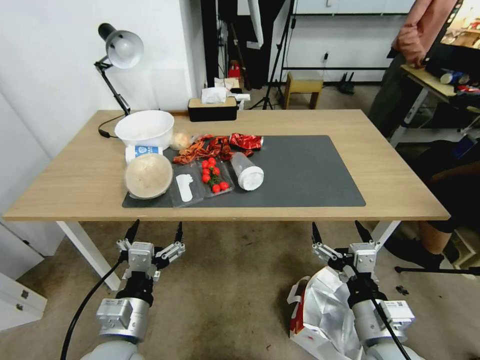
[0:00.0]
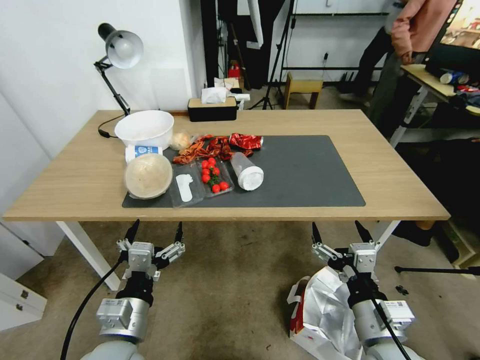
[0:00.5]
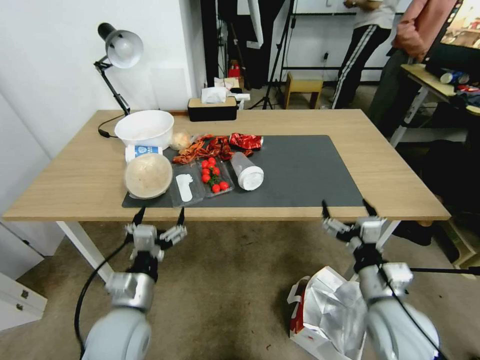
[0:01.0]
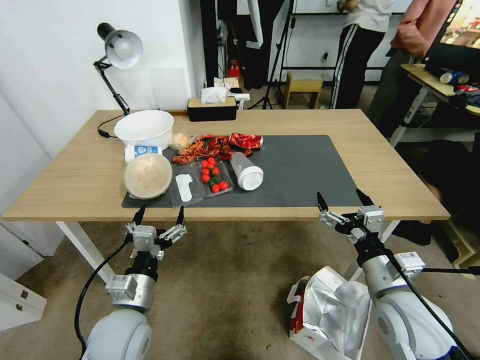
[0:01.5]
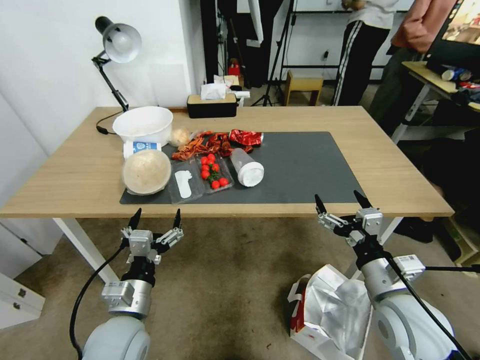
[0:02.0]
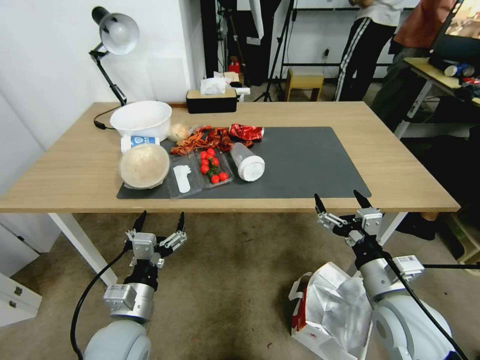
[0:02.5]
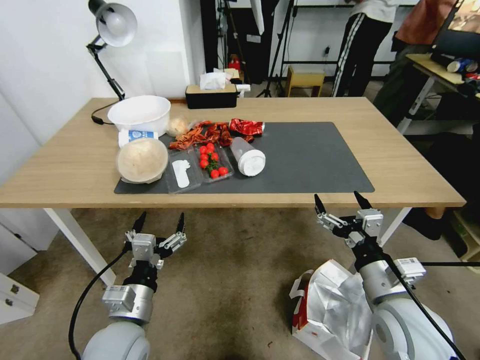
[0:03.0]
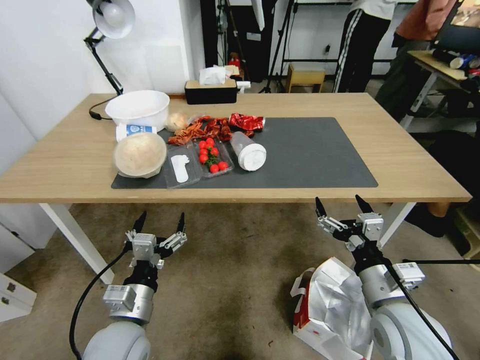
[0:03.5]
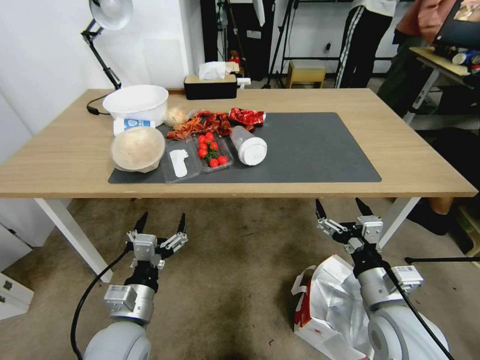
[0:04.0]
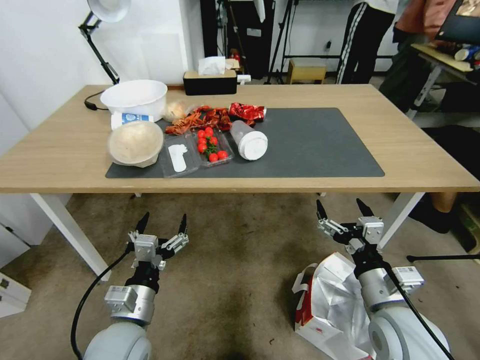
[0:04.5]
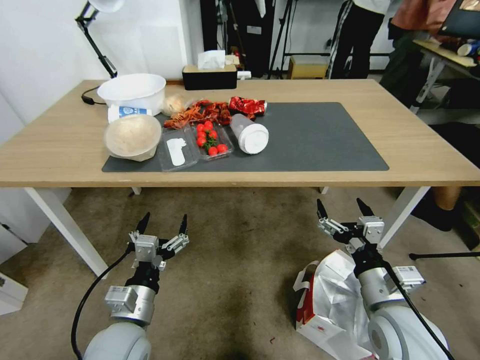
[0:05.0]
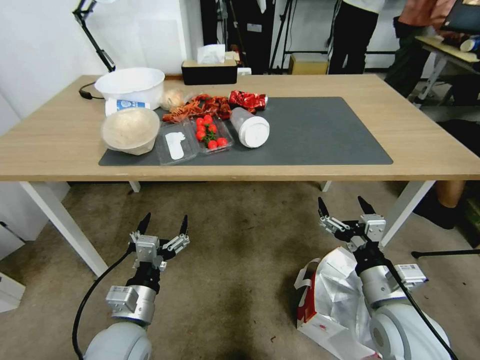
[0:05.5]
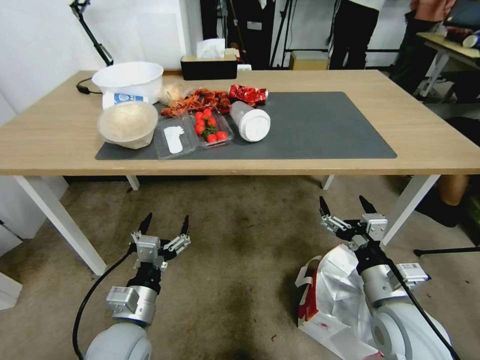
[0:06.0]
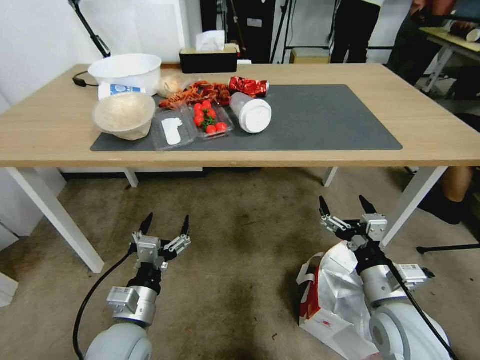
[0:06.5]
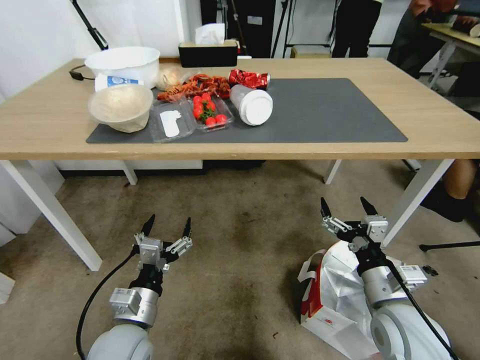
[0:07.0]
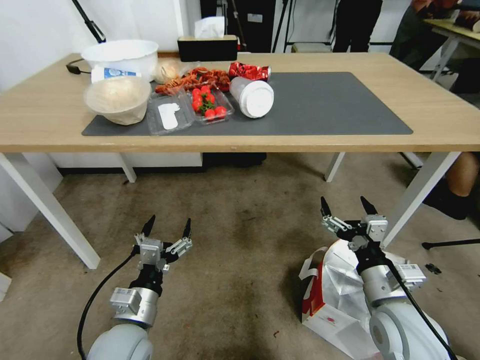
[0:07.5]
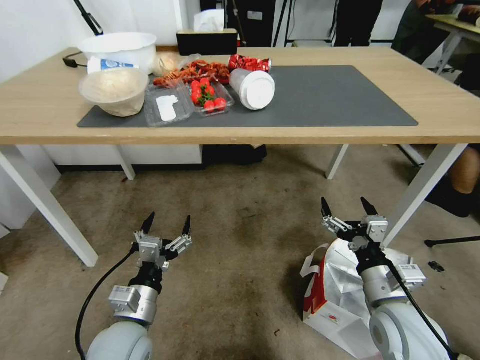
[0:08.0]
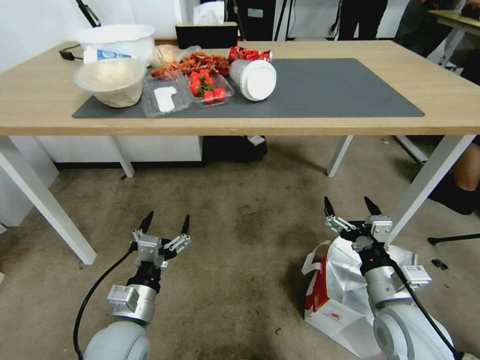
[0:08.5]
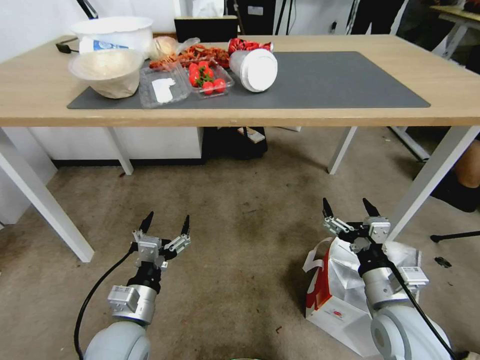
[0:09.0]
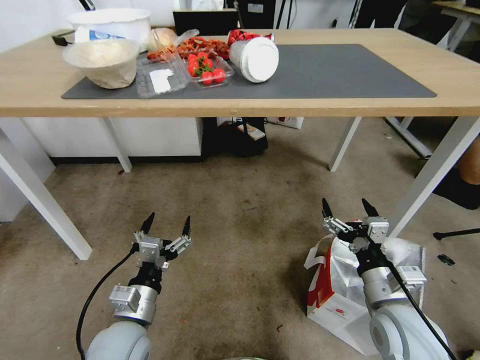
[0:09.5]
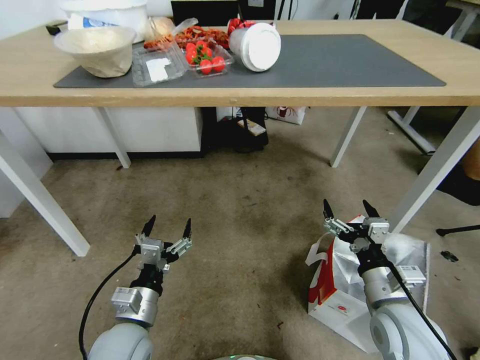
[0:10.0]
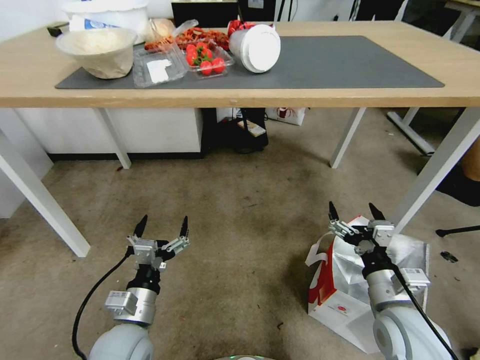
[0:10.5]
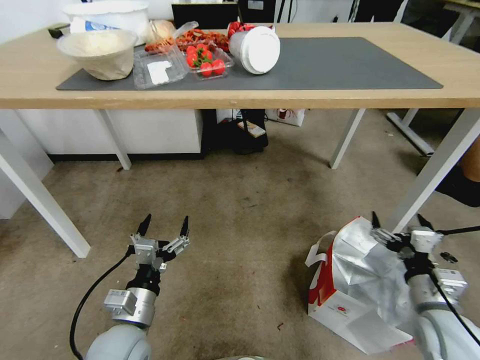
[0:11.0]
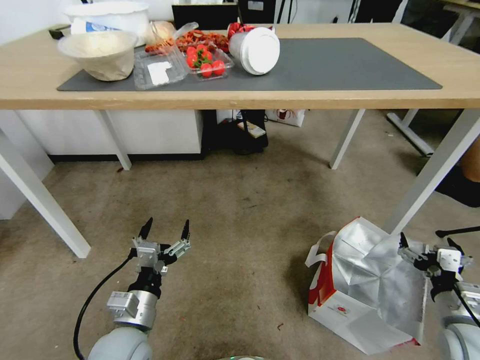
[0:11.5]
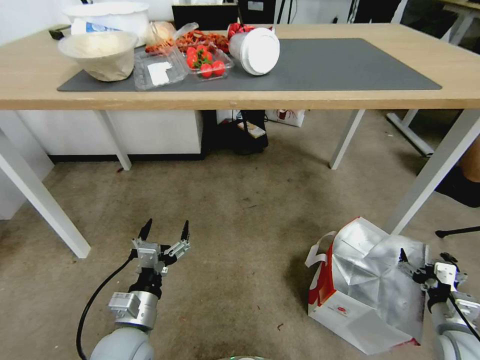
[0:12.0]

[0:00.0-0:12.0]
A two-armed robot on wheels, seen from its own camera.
Task of the whole recording: Pick up the food delivery bag from the floor and place it on the table.
0:10.0 to 0:12.0: The right gripper moves to the right and downward, about 20 cm.

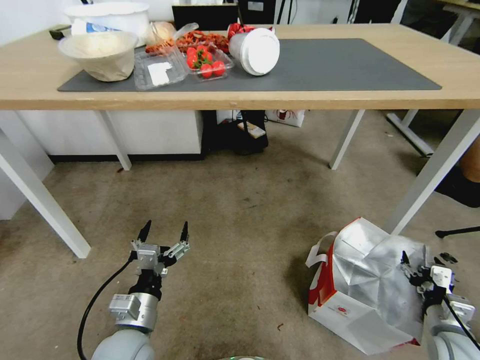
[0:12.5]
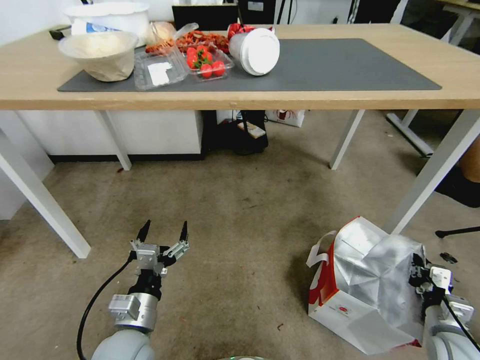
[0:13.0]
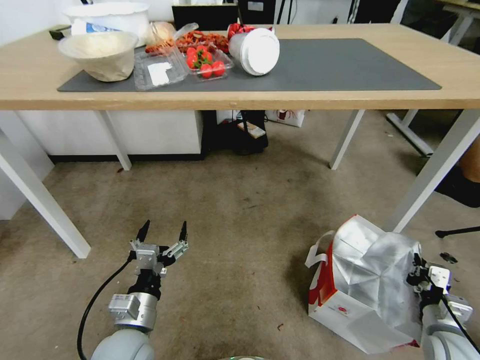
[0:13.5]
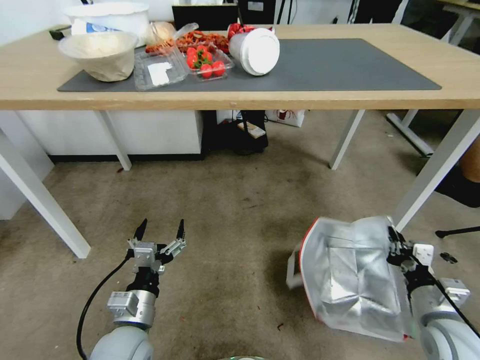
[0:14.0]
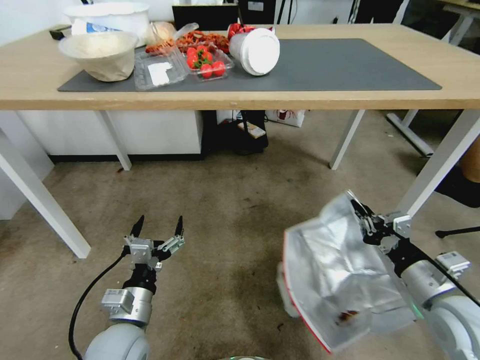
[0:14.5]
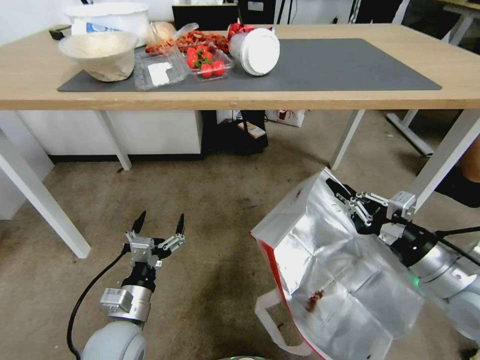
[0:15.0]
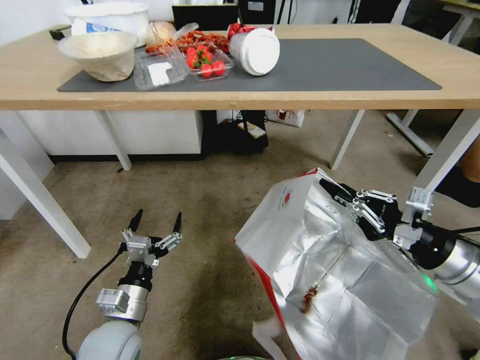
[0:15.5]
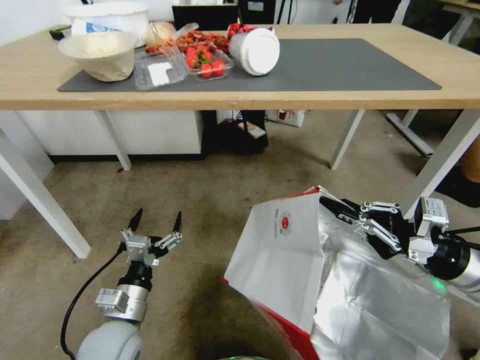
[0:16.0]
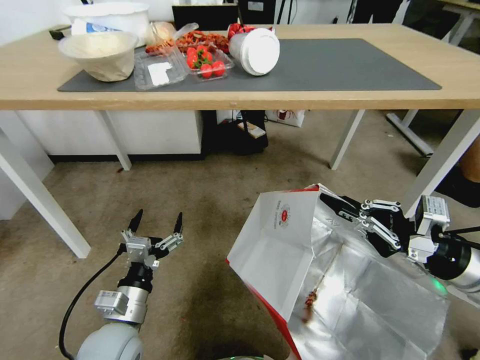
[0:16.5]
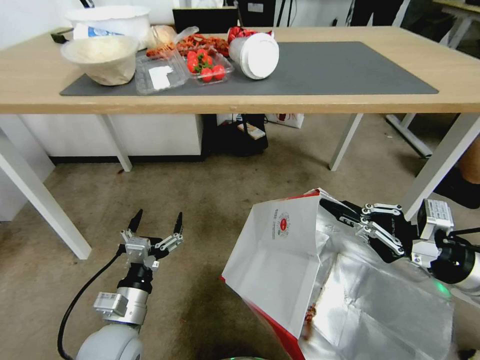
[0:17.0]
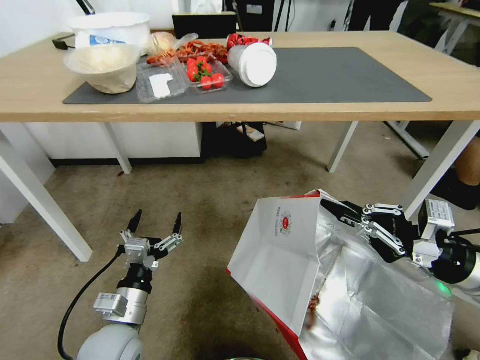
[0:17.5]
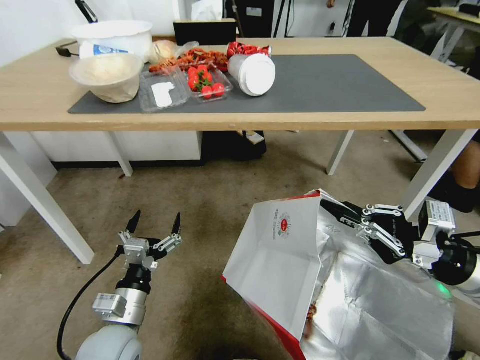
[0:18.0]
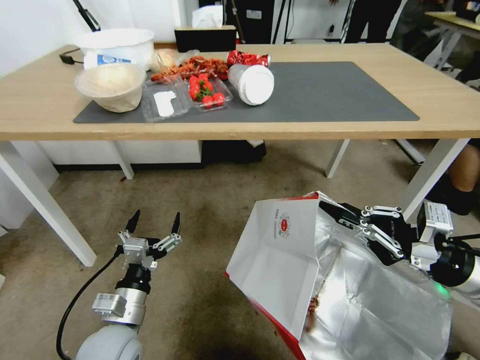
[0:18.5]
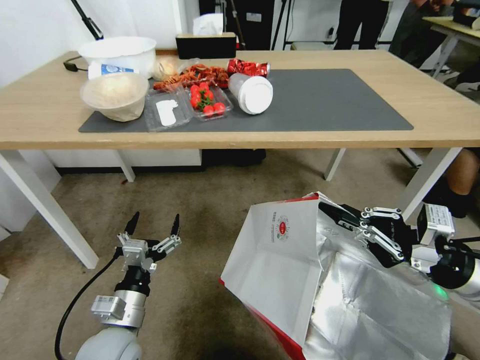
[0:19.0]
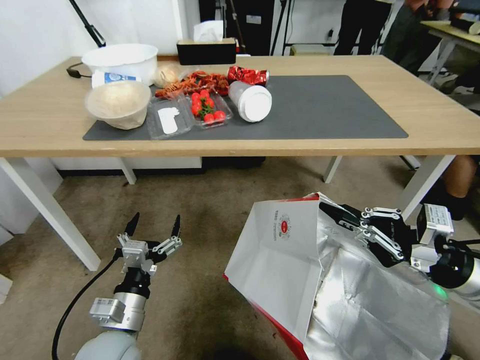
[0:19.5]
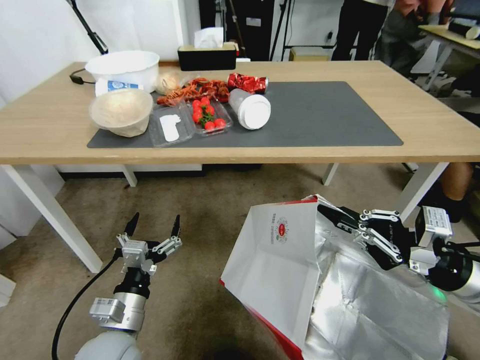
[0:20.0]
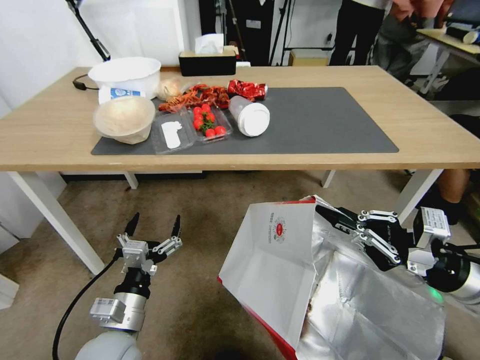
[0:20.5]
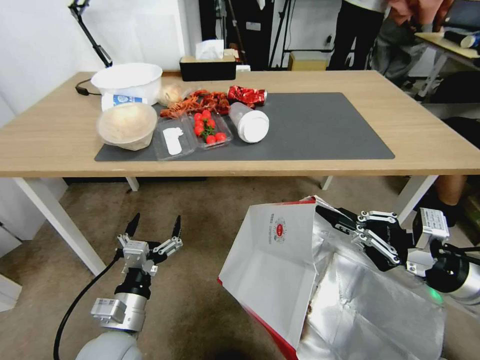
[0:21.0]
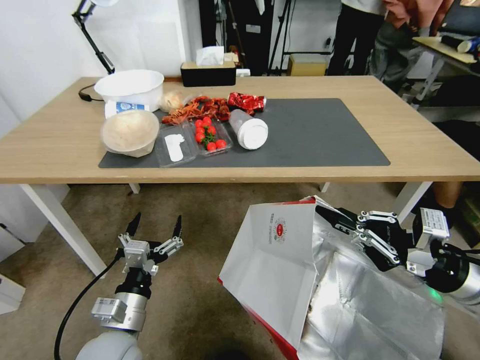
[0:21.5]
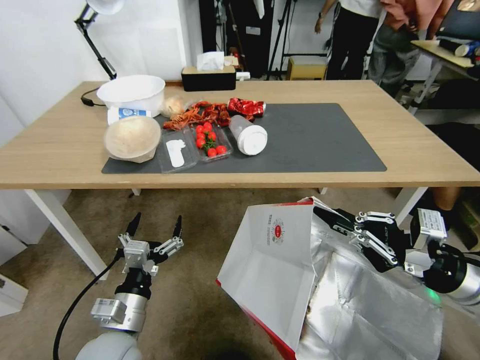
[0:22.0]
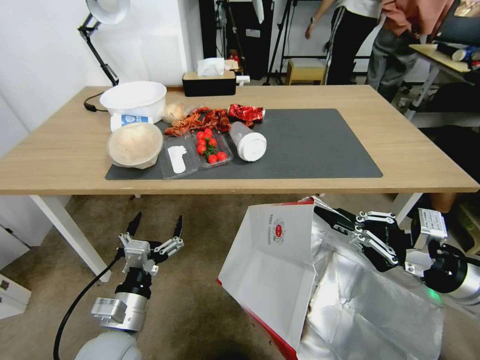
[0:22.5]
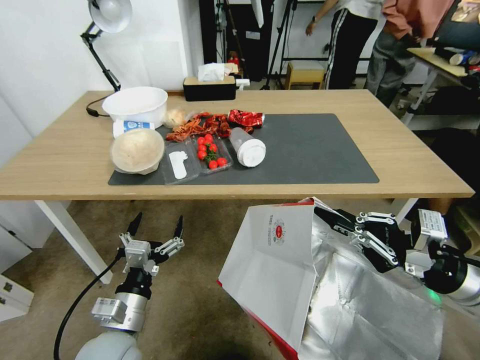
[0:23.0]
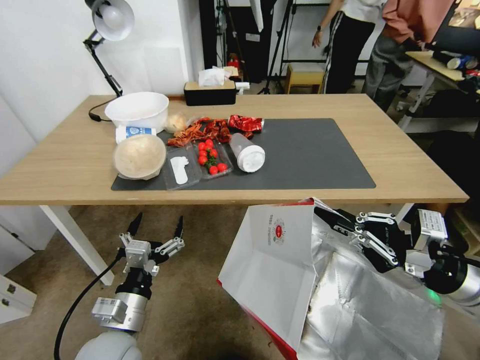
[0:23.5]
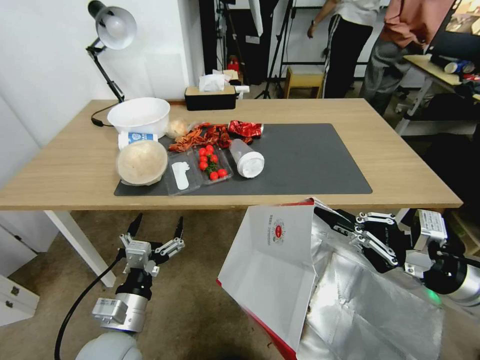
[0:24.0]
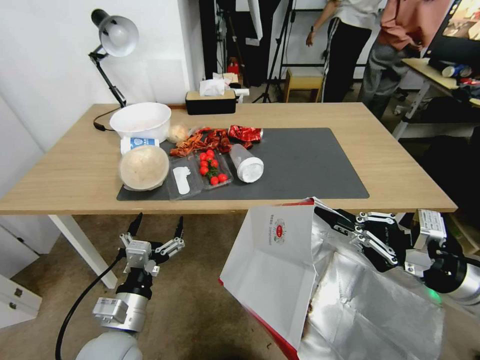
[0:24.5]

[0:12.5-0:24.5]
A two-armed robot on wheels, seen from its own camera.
Task of the whole recording: Pick up the food delivery bag from the floor and place it on the table.
0:12.5 to 0:14.5: The right gripper moves upward and to the left, roughly 20 cm, and closes its fingers.
0:14.5 to 0:16.5: The right gripper shifts approximately 10 cm upward.

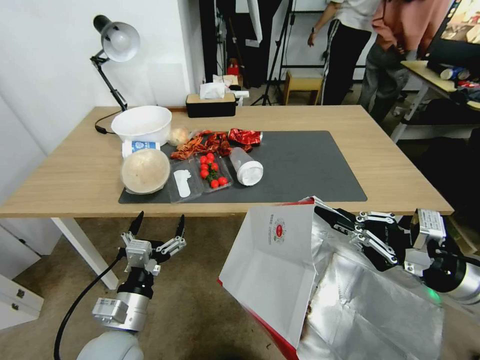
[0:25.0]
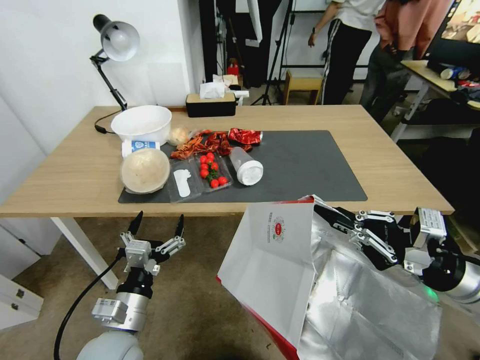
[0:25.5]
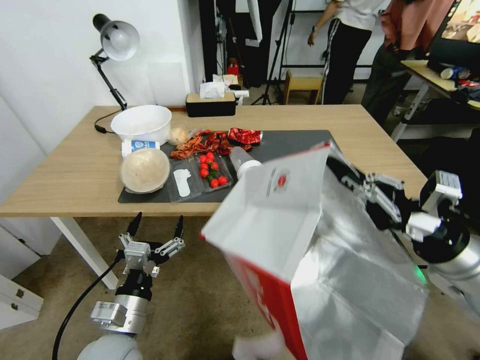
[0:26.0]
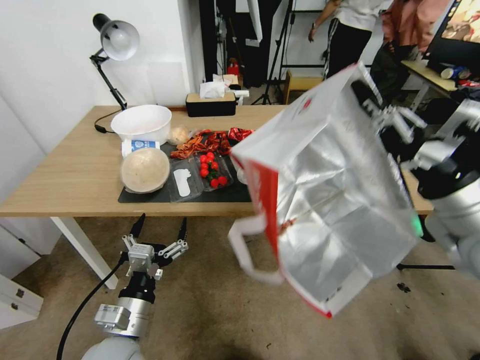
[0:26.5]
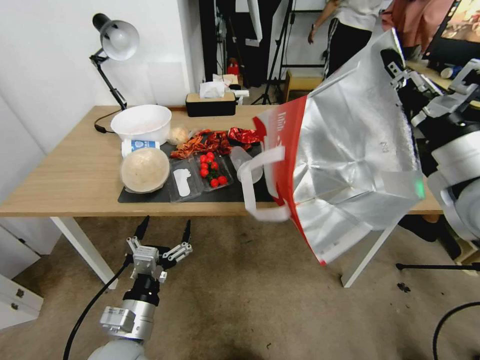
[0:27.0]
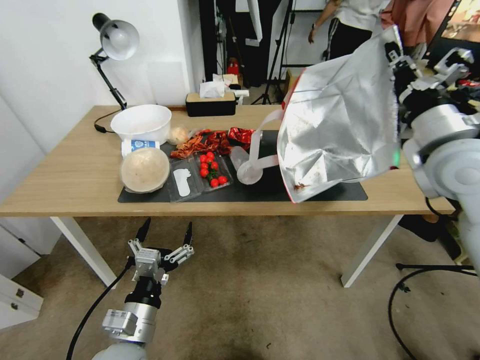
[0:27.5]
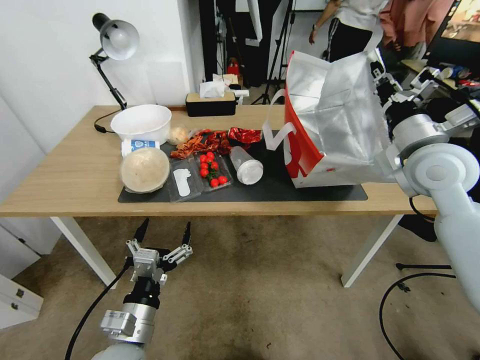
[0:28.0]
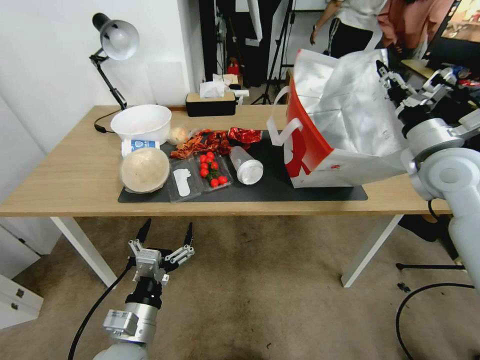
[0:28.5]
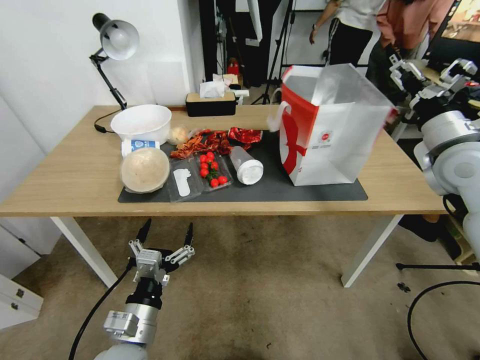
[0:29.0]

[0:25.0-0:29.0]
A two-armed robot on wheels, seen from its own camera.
Task of the whole recording: Pick up the food delivery bag from the floor and place it on the table.
0:25.0 to 0:27.0: The right gripper shifts approximately 15 cm upward and forward.
0:27.0 to 0:29.0: The right gripper goes about 10 cm forward, and opens.
